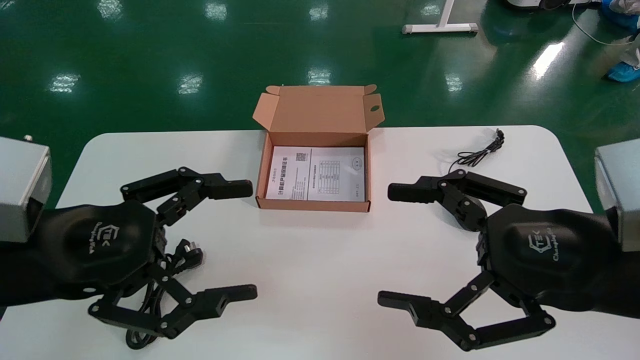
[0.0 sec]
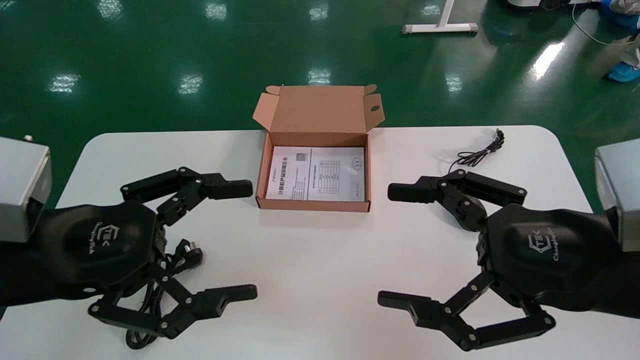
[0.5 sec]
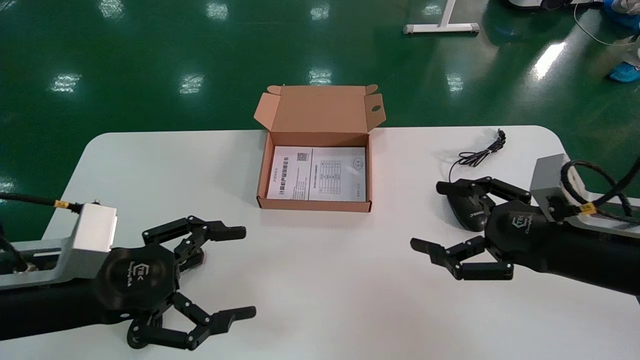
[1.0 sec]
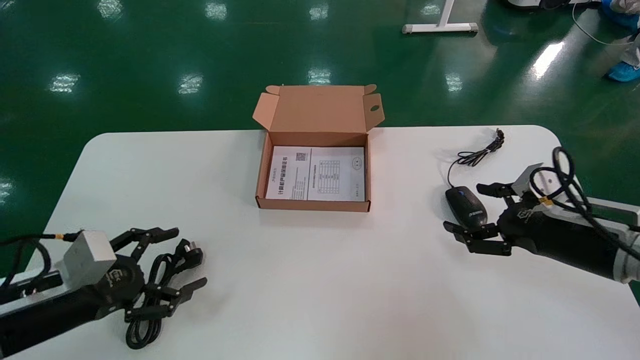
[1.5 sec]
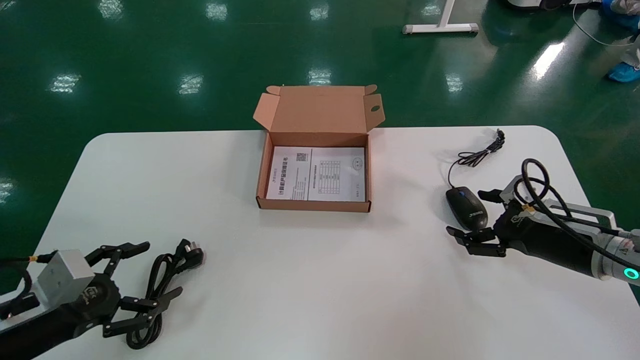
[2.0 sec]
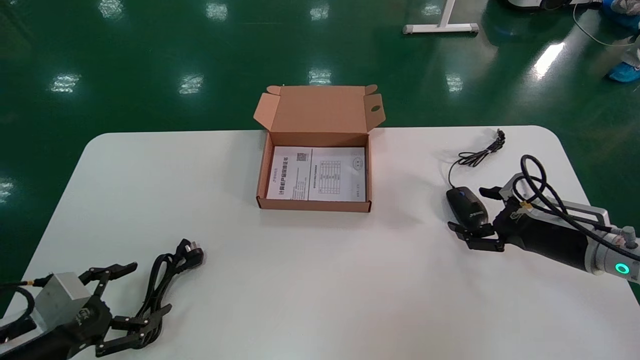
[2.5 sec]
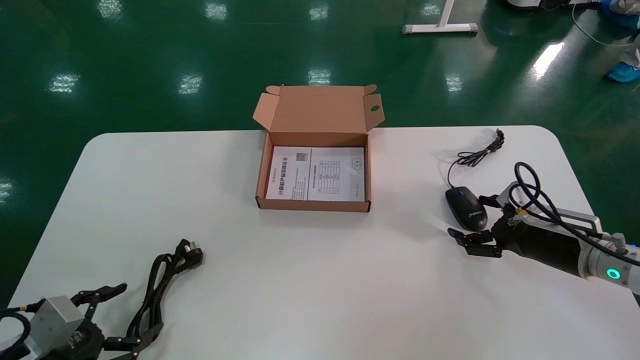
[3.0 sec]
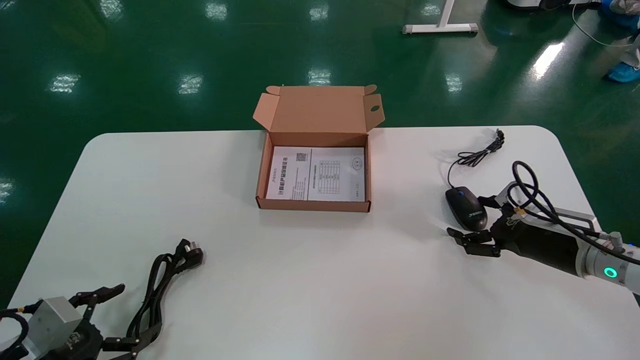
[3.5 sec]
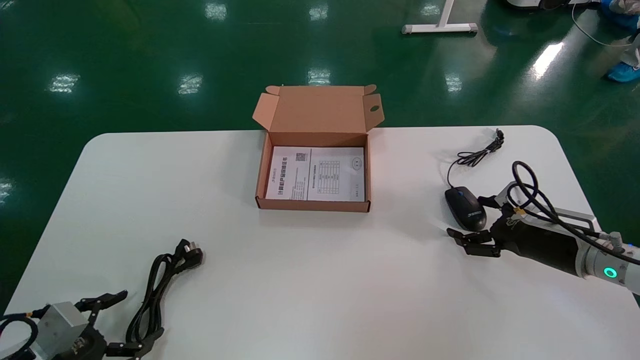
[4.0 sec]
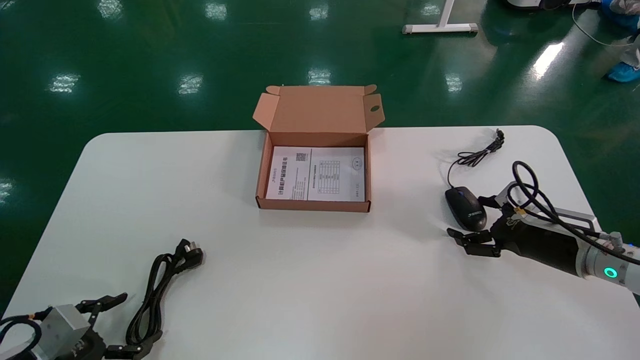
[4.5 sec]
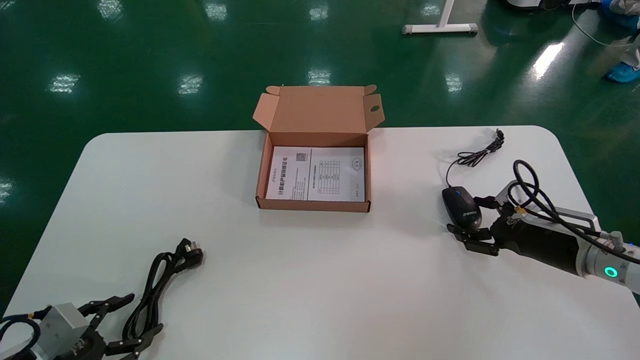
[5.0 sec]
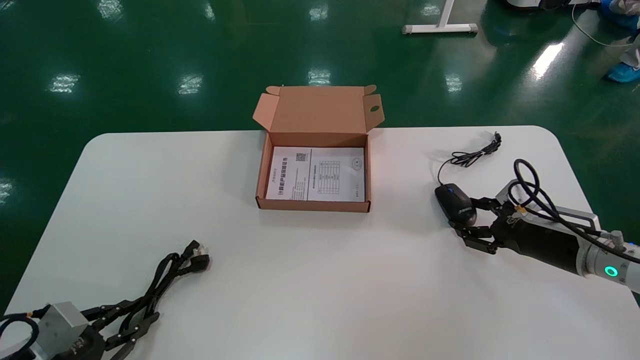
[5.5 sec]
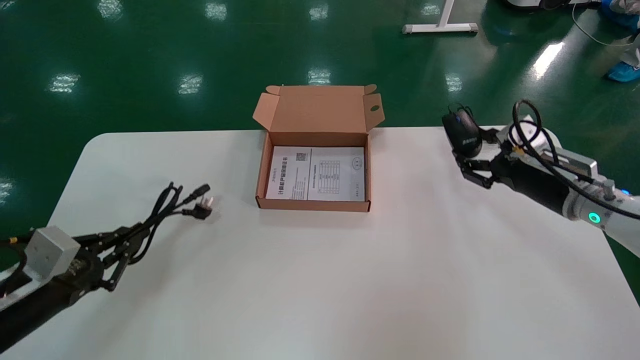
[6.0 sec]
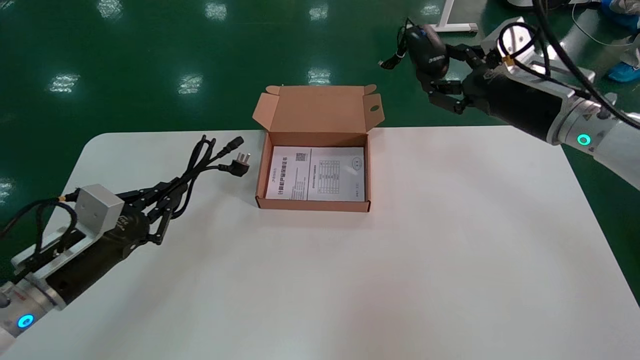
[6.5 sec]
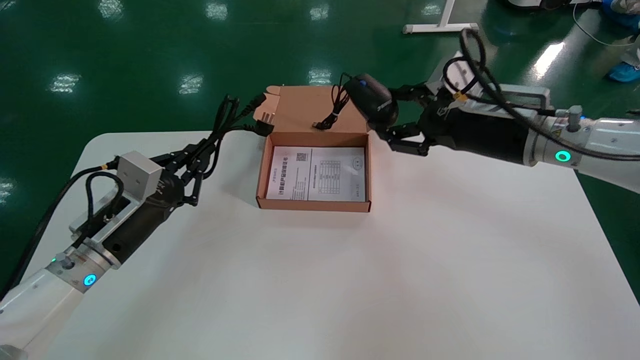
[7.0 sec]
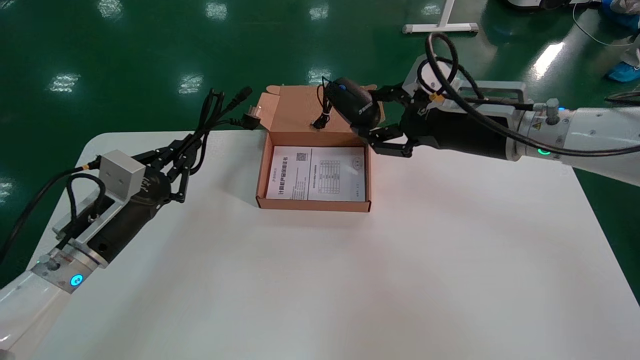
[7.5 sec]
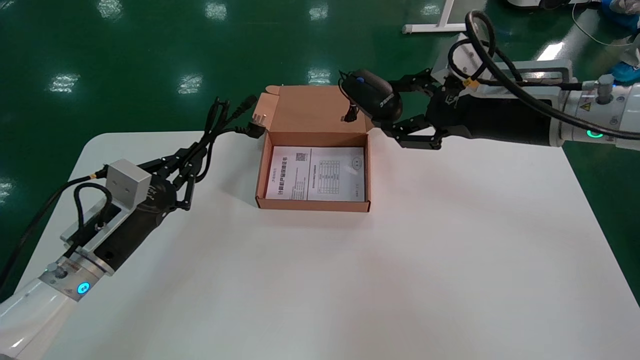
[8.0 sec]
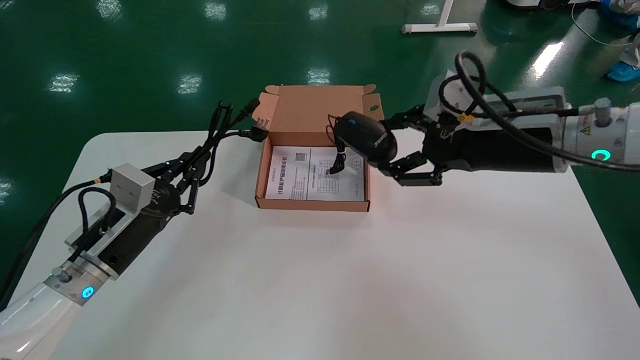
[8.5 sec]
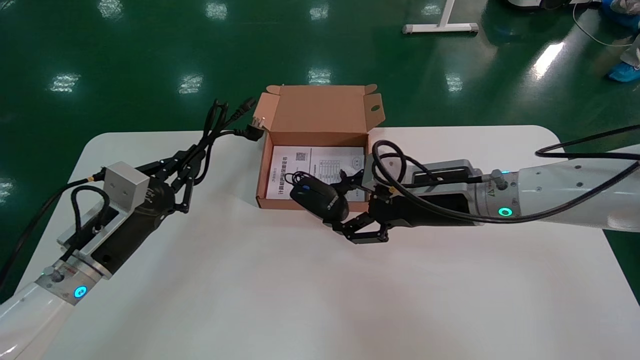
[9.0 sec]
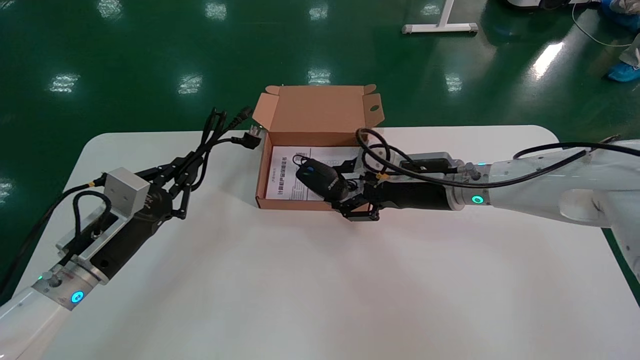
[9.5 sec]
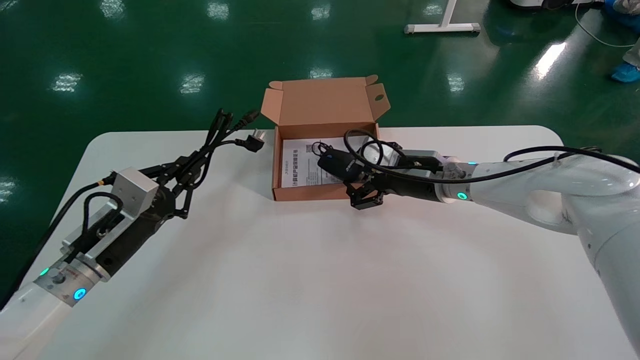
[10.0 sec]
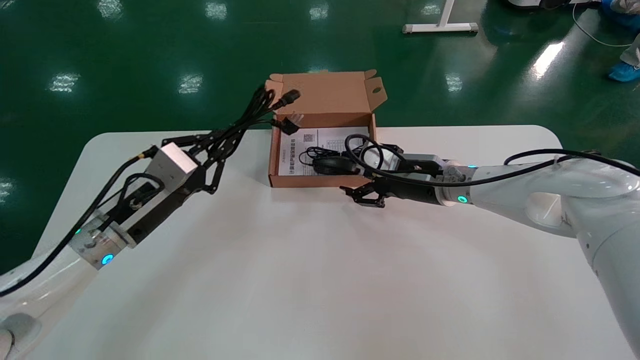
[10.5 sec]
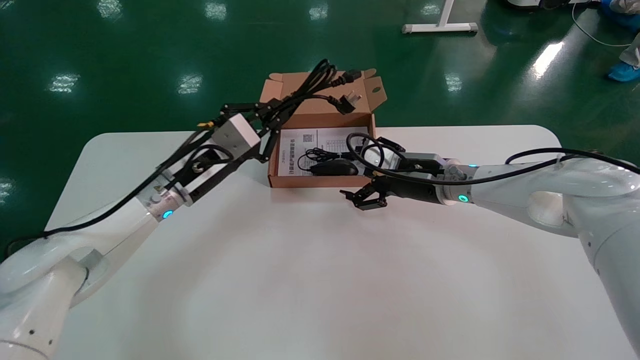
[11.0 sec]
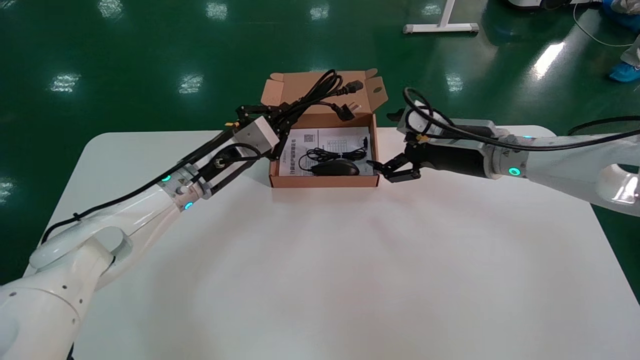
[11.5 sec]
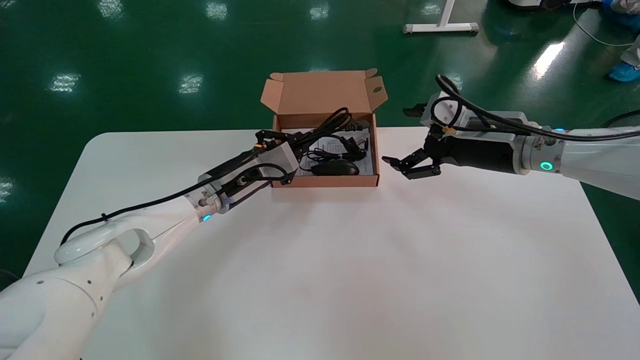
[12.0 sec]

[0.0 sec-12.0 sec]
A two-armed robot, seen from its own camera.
Step, 1.0 sec to 5.5 sec: Grab and pick up the mouse and power cord from the accessory packaging area.
0.0 sec to 2.0 sec: The right gripper heads forward, downward and to the right, covering about 20 cm; the left gripper heads downward and to the left, covering about 20 cm.
2.0 sec to 4.0 sec: The left gripper is displaced downward by roughly 10 cm.
4.0 sec to 6.0 sec: The grippers both shift upward by some 10 cm. The left gripper closes up. Meanwhile the right gripper closes.
6.0 sec to 8.0 sec: The right gripper travels upward, to the left and backward by about 20 cm, while the left gripper heads forward and to the right, covering some 10 cm.
8.0 sec to 10.0 sec: The right gripper shifts roughly 20 cm downward, forward and to the left.
10.0 sec to 12.0 sec: The right gripper travels to the right and upward by about 10 cm, and opens. Meanwhile the left gripper moves to the right and forward, approximately 20 cm.

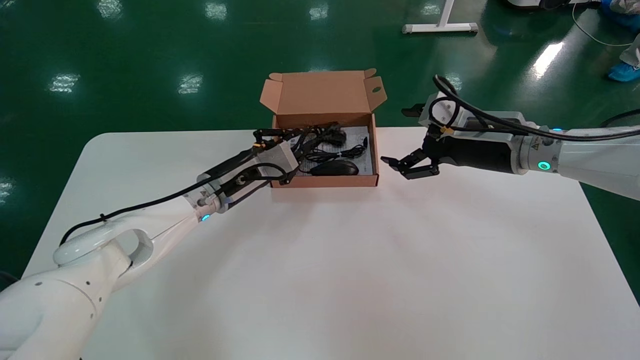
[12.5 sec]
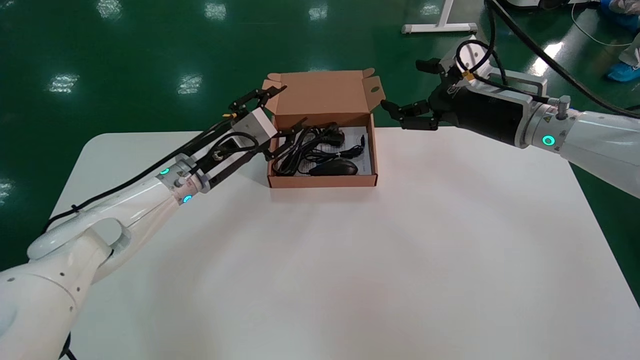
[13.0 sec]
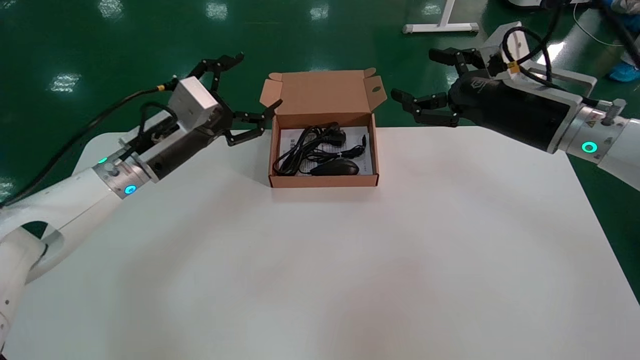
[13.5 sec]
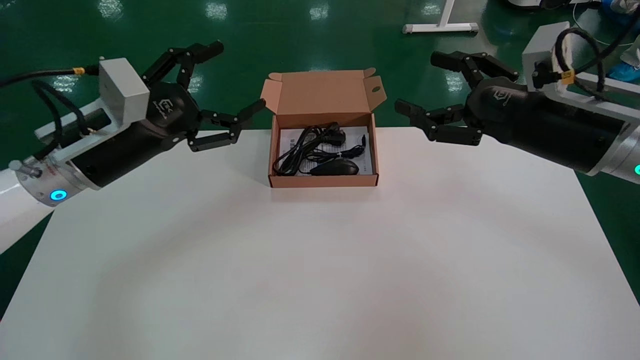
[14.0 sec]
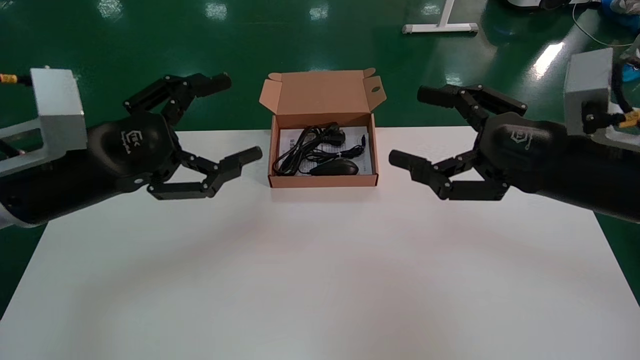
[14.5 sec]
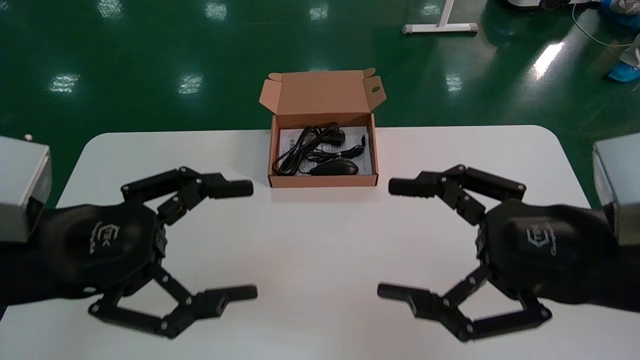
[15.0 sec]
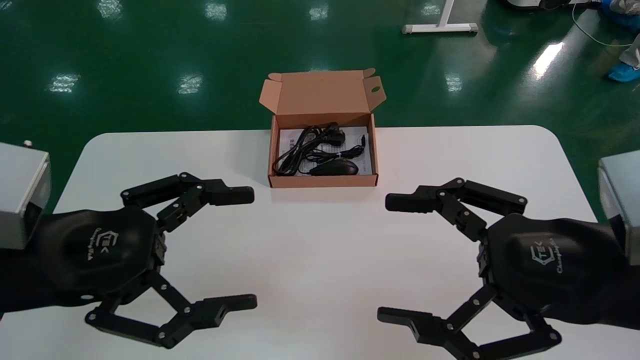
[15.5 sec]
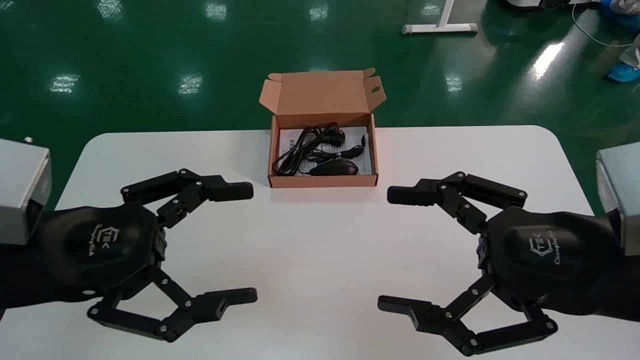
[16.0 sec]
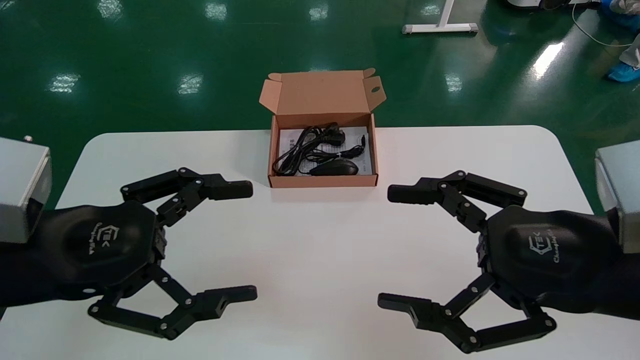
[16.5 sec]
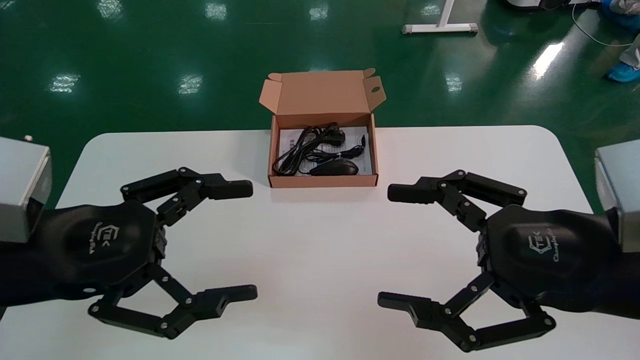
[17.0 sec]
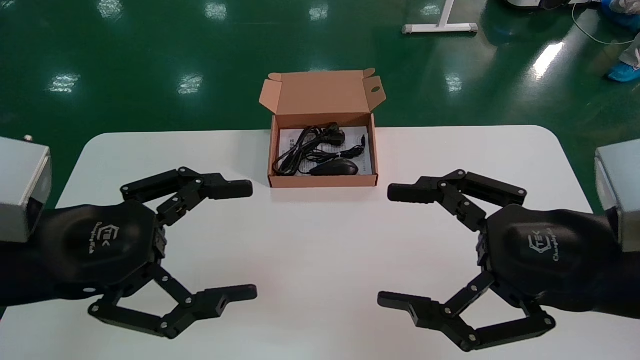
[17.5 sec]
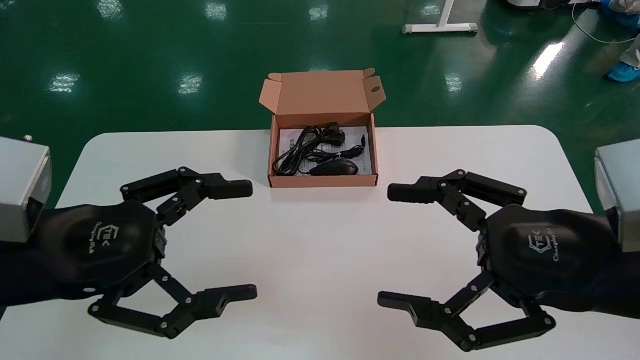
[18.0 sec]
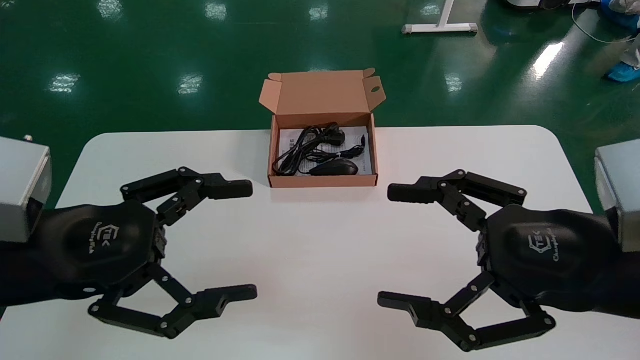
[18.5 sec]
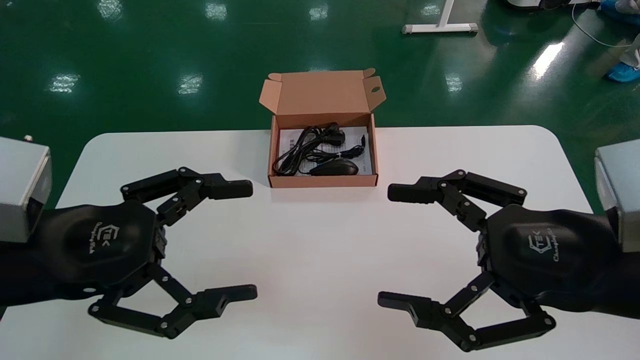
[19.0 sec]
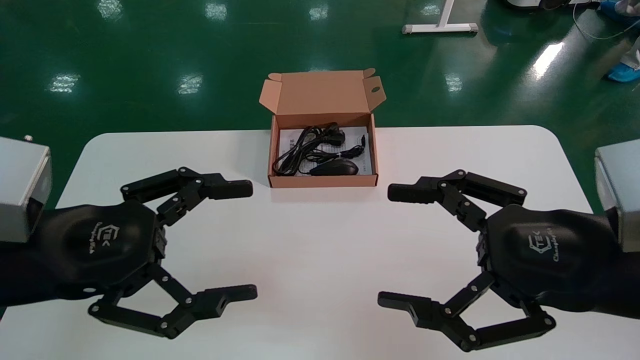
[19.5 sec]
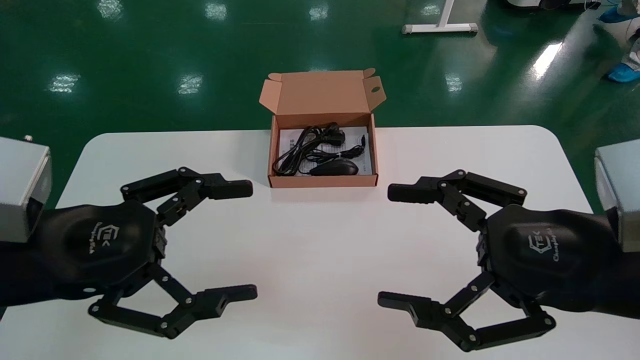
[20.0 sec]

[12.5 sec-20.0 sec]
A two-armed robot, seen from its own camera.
12.5 sec to 14.5 sec: The left gripper heads backward, to the left and upward, covering some 25 cm, and opens its fingers. Meanwhile the right gripper travels backward by approximately 15 cm.
14.5 sec to 16.5 sec: The grippers both shift backward by about 5 cm.
16.5 sec to 20.0 sec: Neither gripper changes place.
